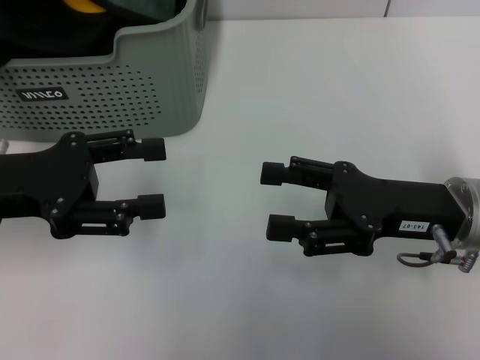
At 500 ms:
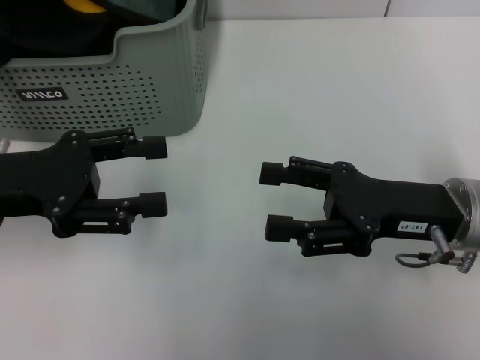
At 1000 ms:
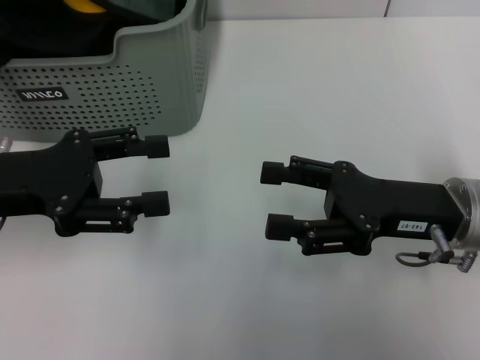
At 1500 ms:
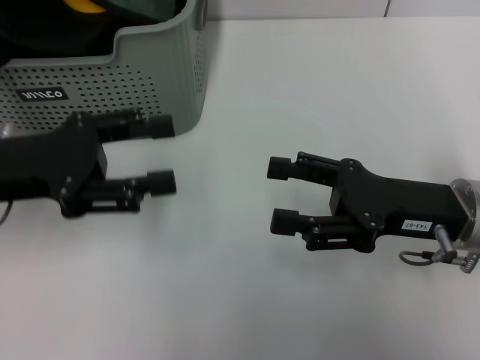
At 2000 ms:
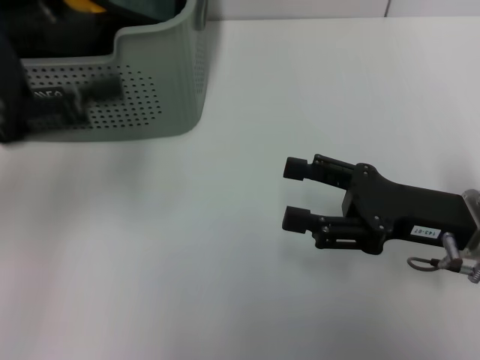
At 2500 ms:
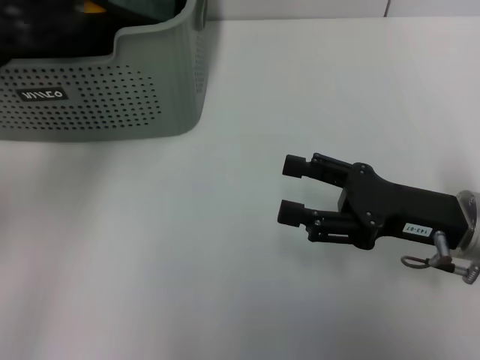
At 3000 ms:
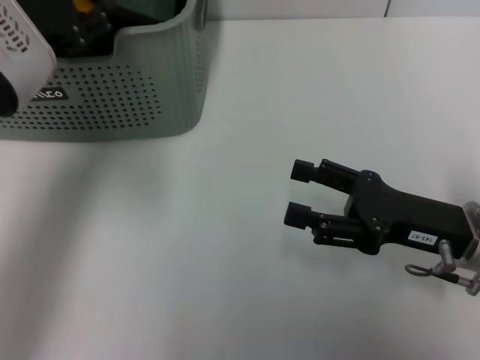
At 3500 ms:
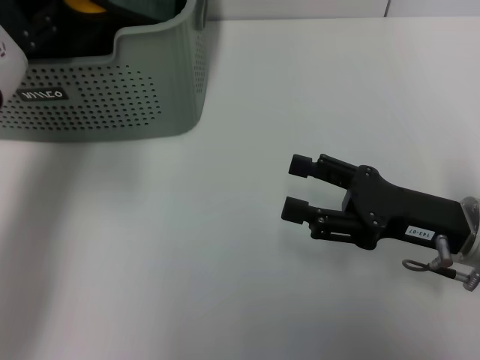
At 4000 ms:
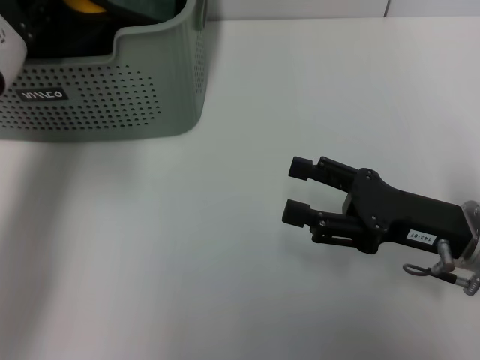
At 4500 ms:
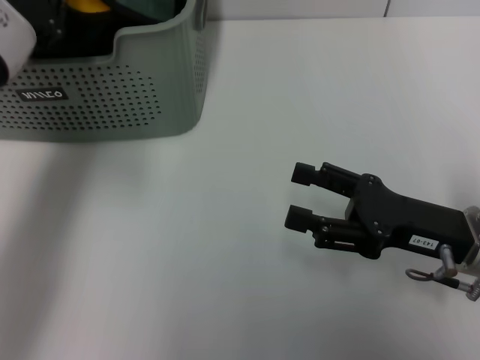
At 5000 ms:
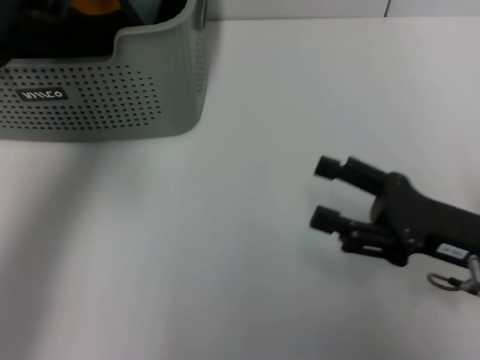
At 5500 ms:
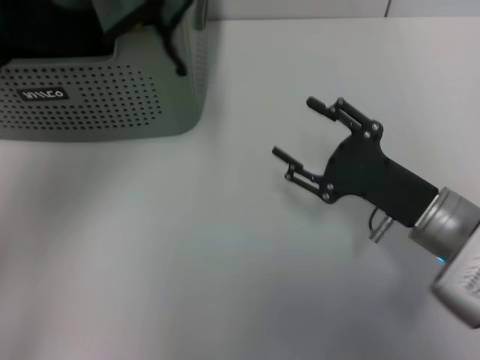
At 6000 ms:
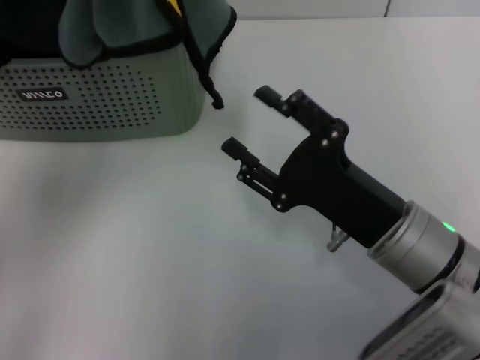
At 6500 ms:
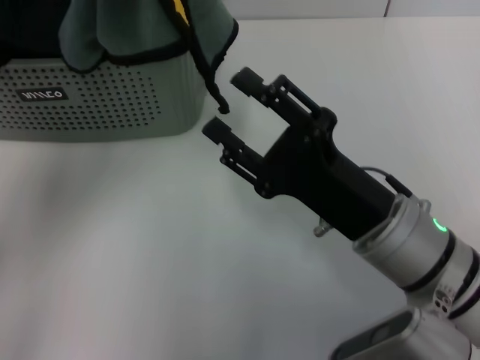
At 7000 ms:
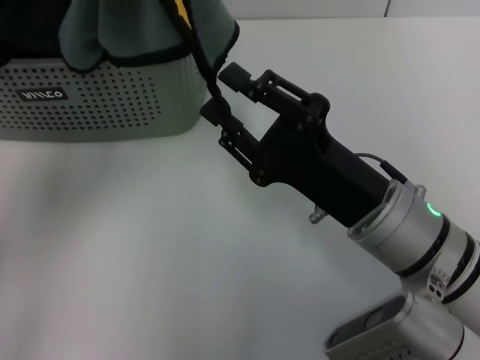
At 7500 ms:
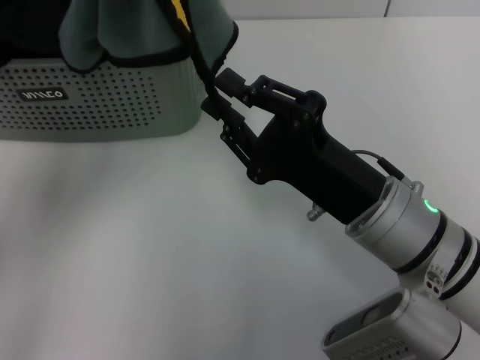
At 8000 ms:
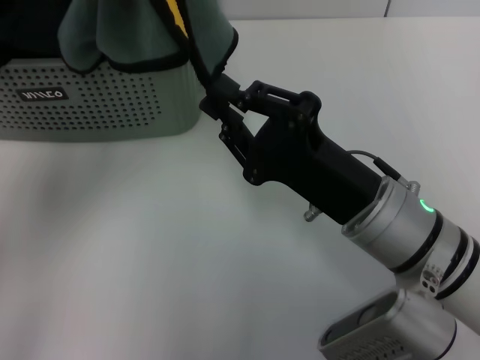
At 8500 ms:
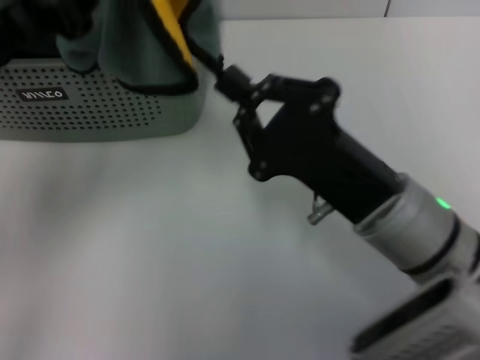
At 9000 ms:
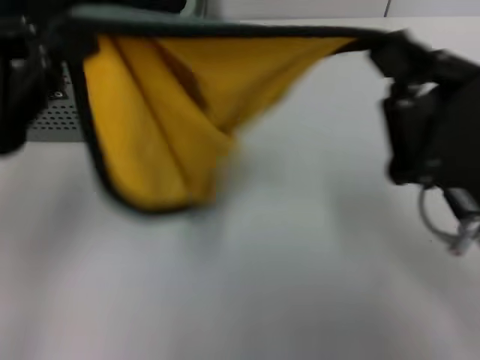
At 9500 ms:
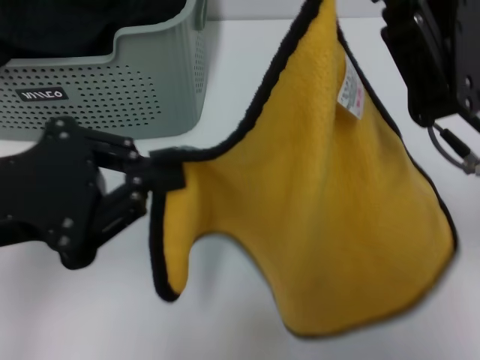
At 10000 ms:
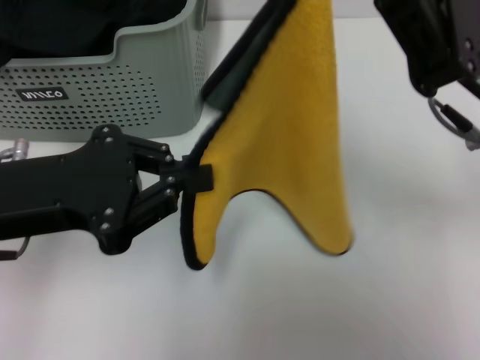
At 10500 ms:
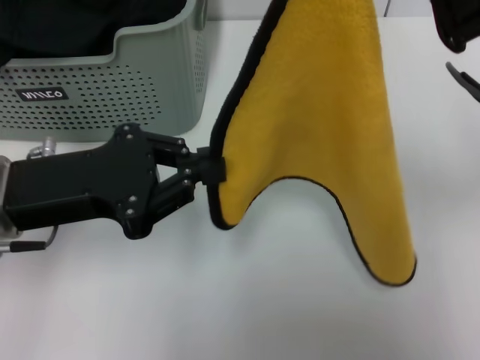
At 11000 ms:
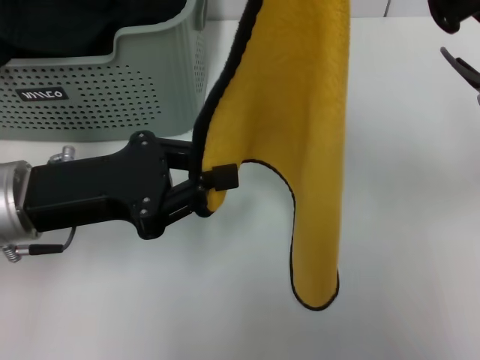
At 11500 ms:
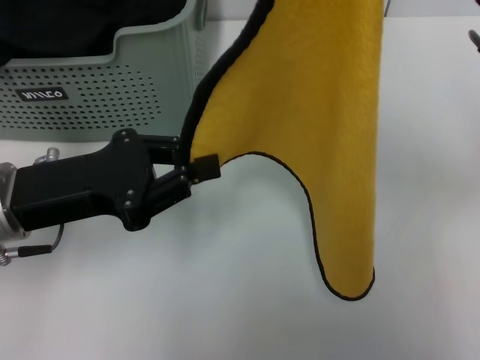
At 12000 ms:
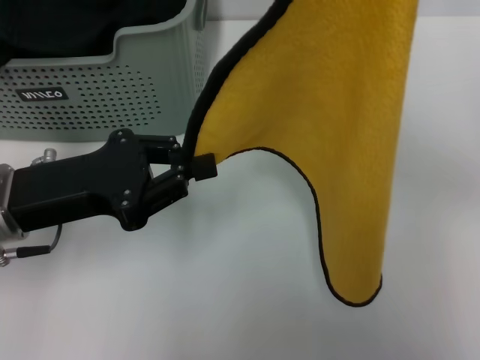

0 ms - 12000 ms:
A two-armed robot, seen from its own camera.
Task of the whole recording: pick up the towel from the storage box and lay it flat on the table.
Step, 0 ms - 4500 ms: Pick up a towel with the left gripper.
Step, 5000 ms - 8000 ms: Spread the towel flat with the left gripper.
0 ms - 2000 ms: The left gripper shifts about 10 cm upward.
2000 ms - 4000 ms: The left gripper goes roughly 5 cm forward.
4000 ms - 6000 ms: The right gripper heads to the left, covering about 5 cm; the left gripper goes roughly 10 cm upward and backward, and closes its fingers.
6000 ms - 8000 ms: The right gripper closes its fingers.
8000 ms - 10000 ms: The left gripper goes roughly 5 cm downward. Meanwhile the right gripper travels upward and to the right by approximately 10 cm.
10000 ms - 12000 ms: The left gripper moves about 5 cm, while the right gripper ends up roughly 5 cm from where it was.

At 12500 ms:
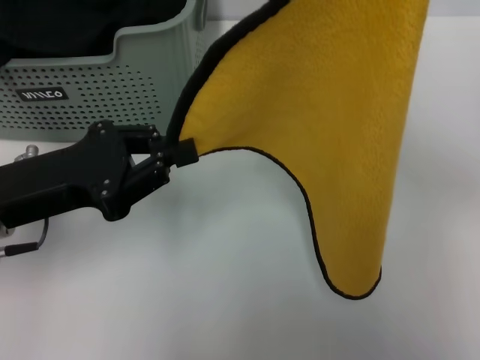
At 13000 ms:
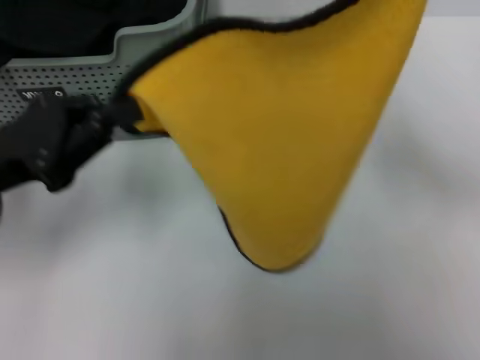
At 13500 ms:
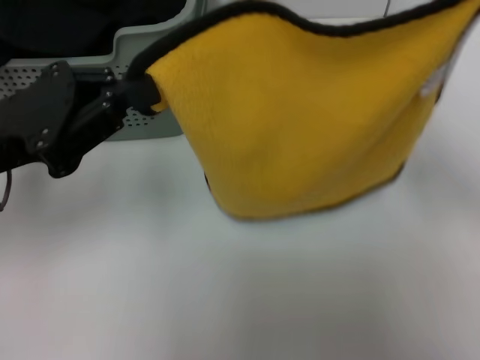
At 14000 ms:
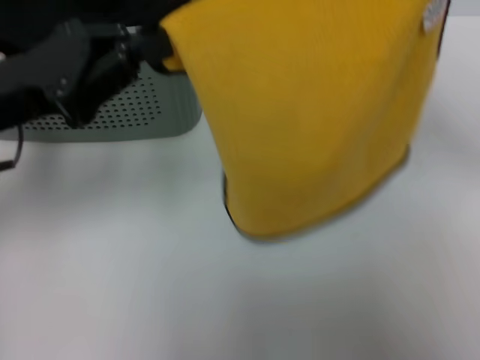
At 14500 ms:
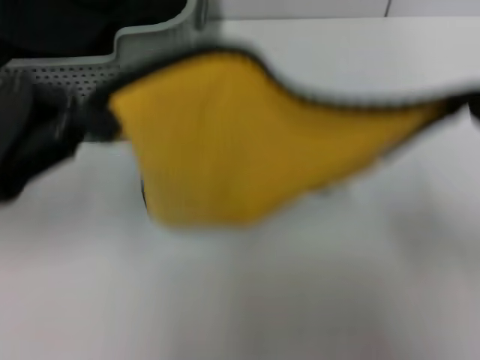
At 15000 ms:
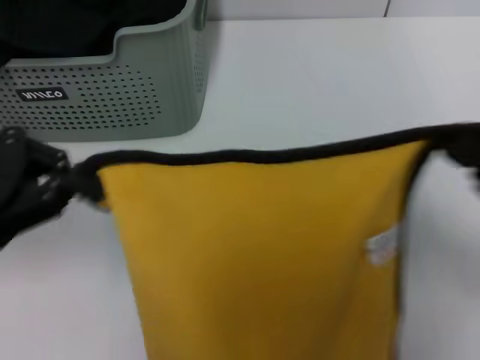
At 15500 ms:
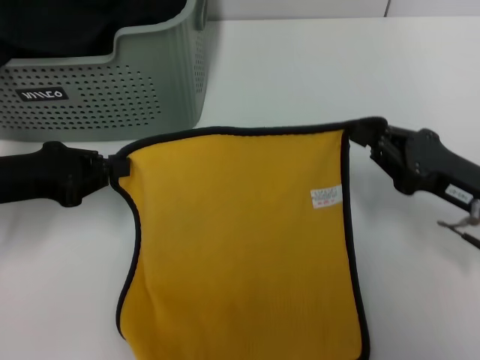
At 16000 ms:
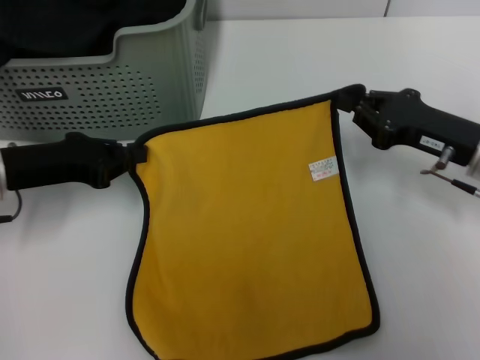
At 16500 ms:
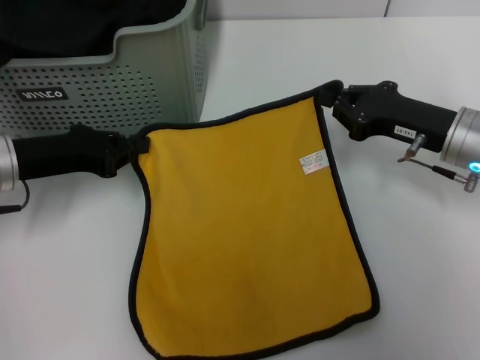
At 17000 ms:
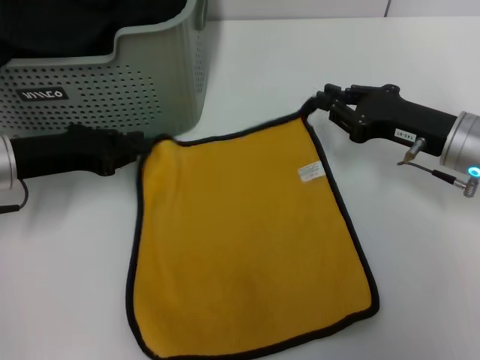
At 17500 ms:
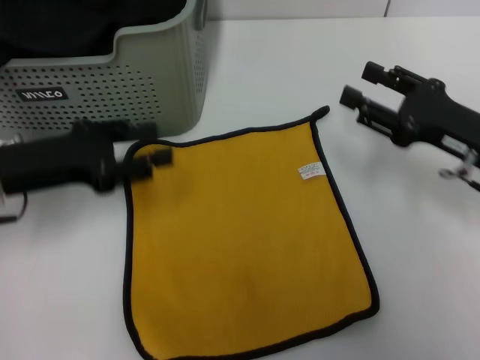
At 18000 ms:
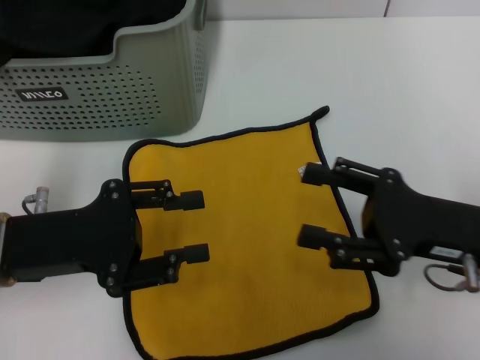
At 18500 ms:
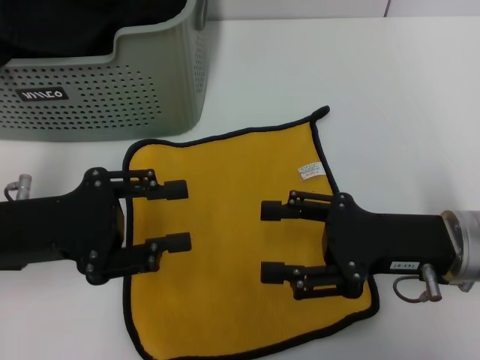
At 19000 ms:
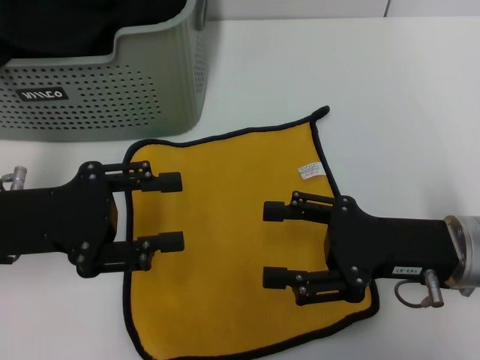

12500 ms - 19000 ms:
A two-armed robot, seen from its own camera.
Task of the whole recording: pick up the towel from the storage box and lay it flat on the table.
Step, 12500 ms - 17000 ms: Spread the towel flat with the right gripper.
12500 ms - 14500 ms: The right gripper is displaced downward, backward and to the right by roughly 15 cm. Meanwhile the left gripper goes approximately 5 cm upward.
14500 ms - 17000 ms: The left gripper heads downward and forward, covering some 10 cm, while the right gripper moves forward and downward, roughly 15 cm.
17000 ms - 19000 ms: Both grippers travel together backward, about 10 cm. The right gripper opens up, while the left gripper opens its fingers.

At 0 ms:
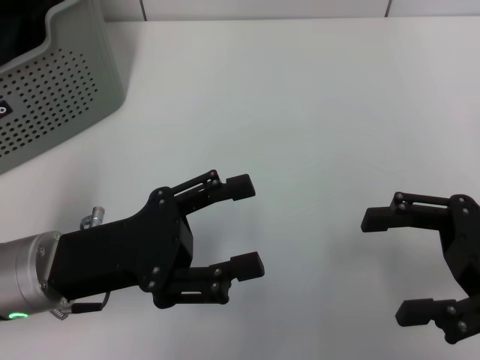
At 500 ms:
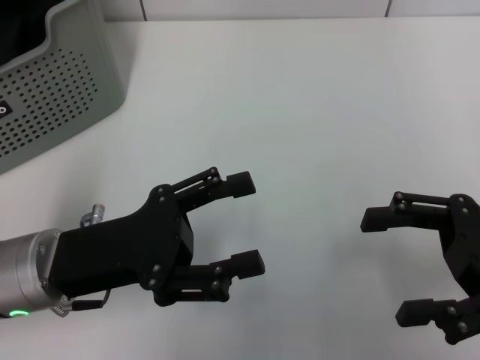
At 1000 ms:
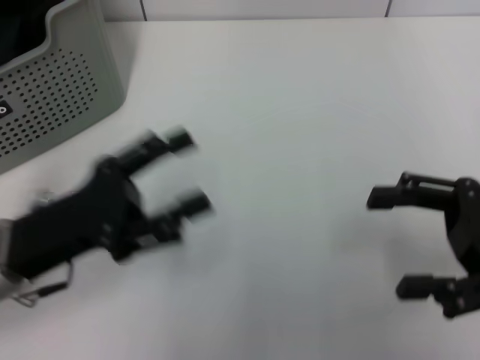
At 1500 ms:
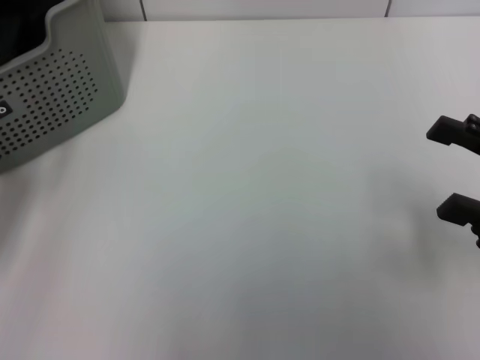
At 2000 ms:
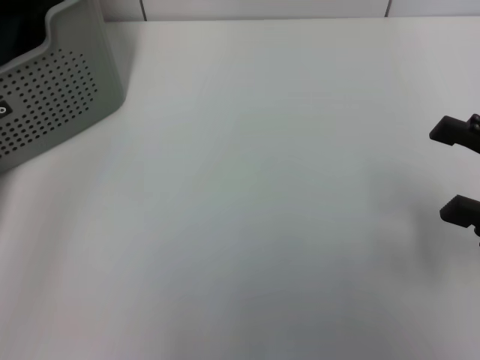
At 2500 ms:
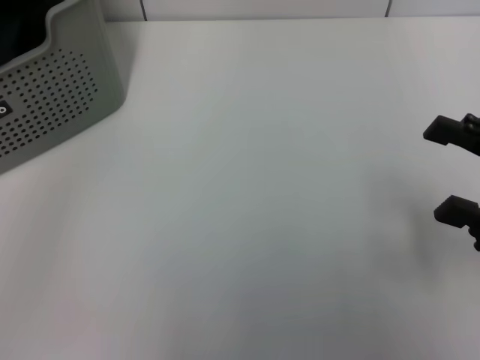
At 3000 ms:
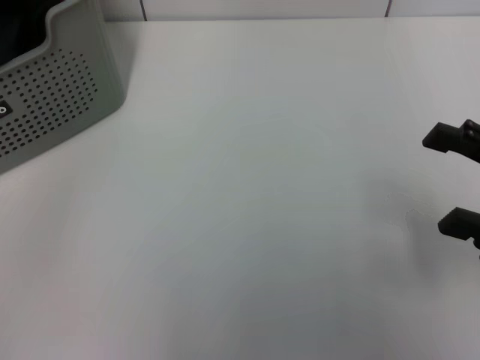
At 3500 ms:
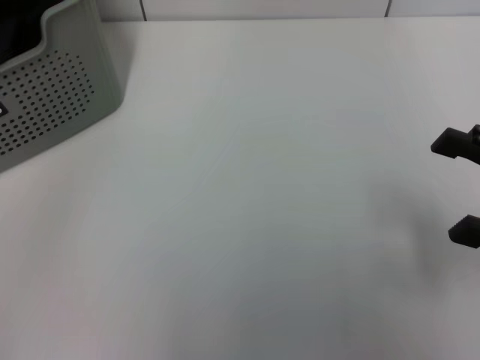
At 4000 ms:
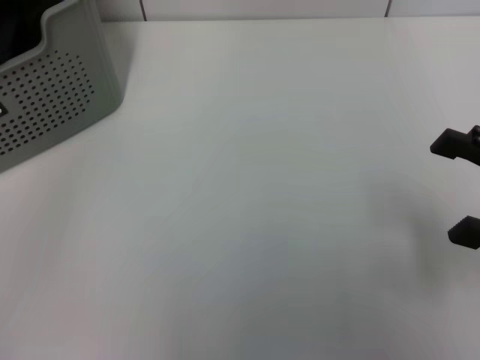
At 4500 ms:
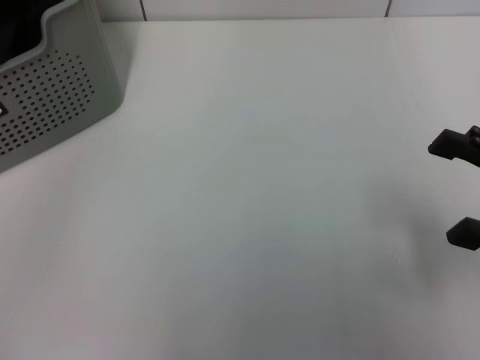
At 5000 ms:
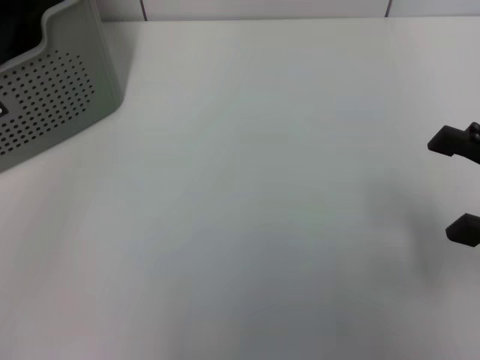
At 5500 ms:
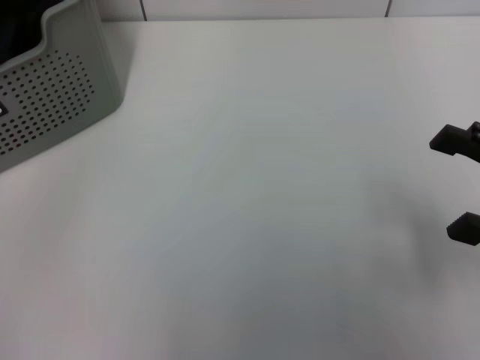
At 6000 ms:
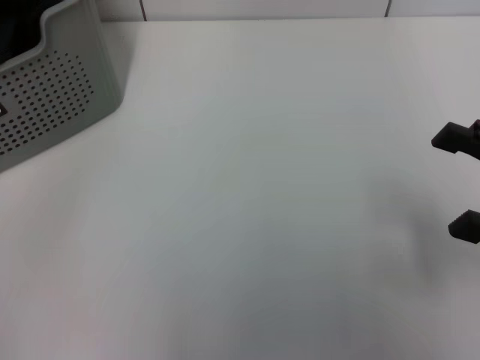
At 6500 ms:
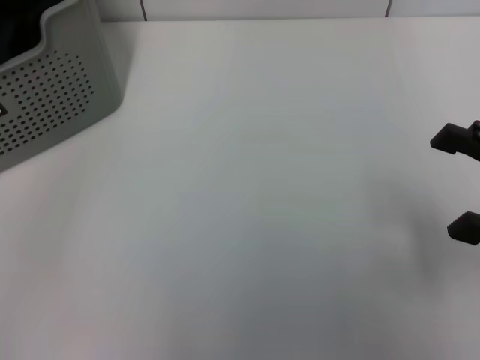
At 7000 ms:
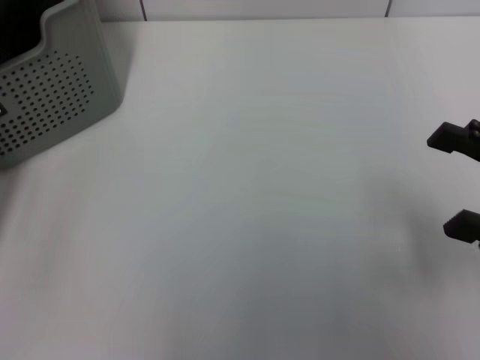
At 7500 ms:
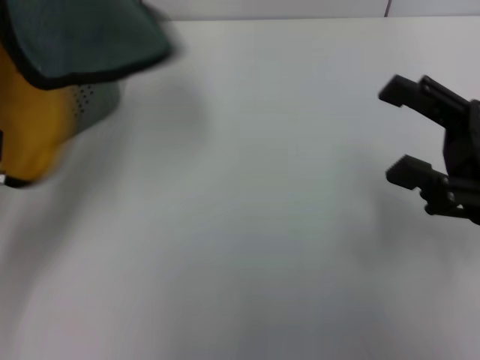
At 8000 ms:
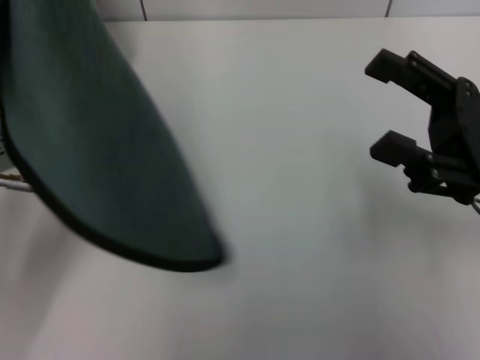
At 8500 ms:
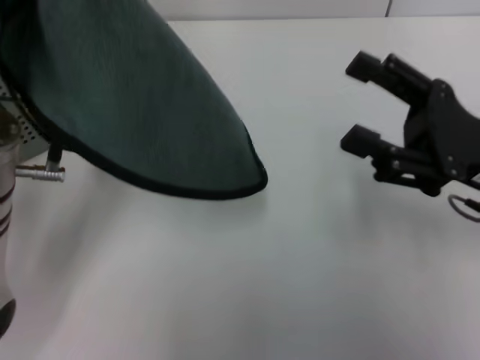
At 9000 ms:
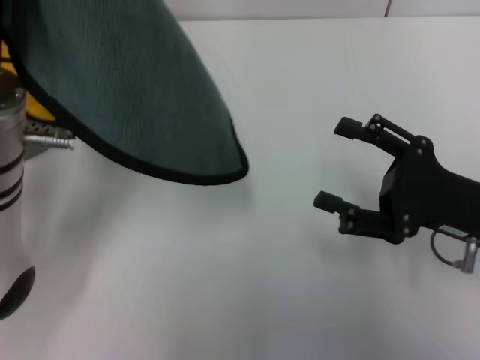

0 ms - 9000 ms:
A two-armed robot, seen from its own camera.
Task of the whole recording: pick up the towel from the storage box and lay it flat on the table.
Step, 0 ms - 6000 ms: Pick up a towel with the left gripper.
0 ms - 2000 ms: The left gripper shifts roughly 15 cm to the left.
2000 ms - 4500 ms: The left gripper moves forward, some 5 cm, and closes its fingers.
4500 ms - 7000 ms: The left gripper shifts approximately 5 cm backward, and opens, then closes once more.
7000 ms - 9000 ms: The right gripper is displaced to the left by approximately 5 cm. The left gripper shifts roughly 15 cm to the right.
